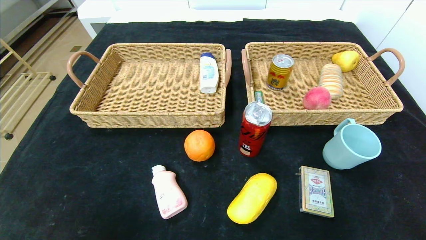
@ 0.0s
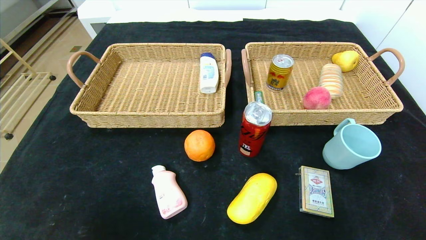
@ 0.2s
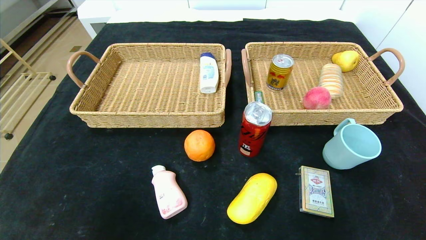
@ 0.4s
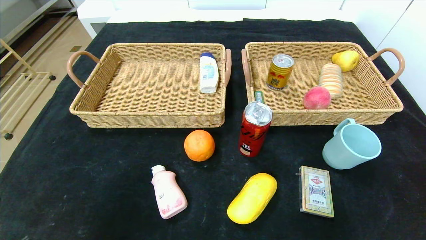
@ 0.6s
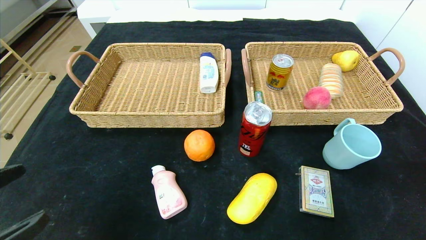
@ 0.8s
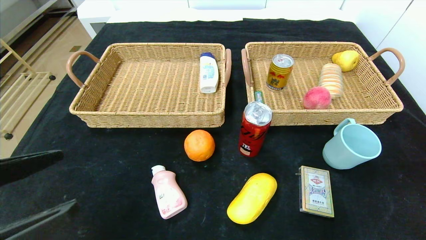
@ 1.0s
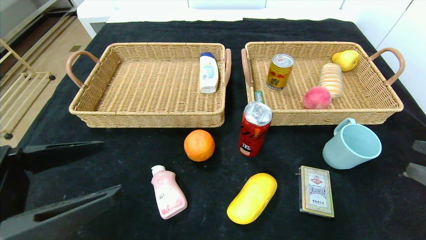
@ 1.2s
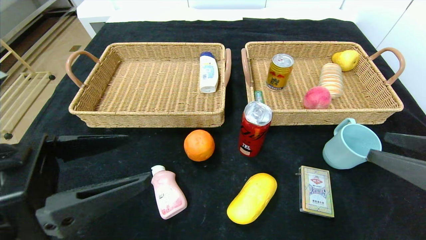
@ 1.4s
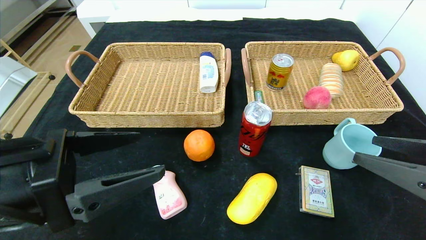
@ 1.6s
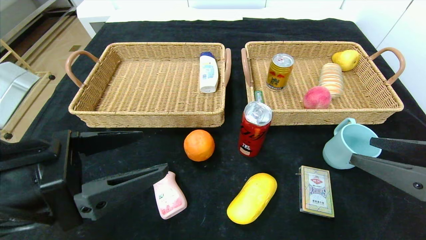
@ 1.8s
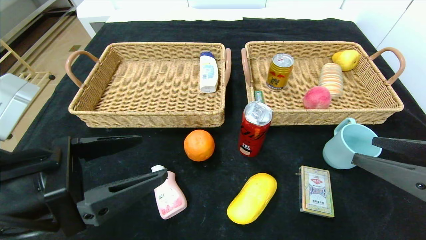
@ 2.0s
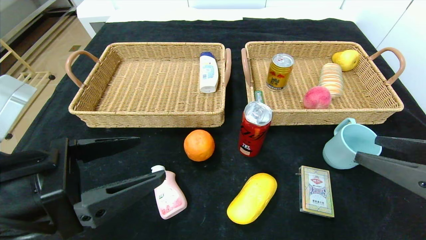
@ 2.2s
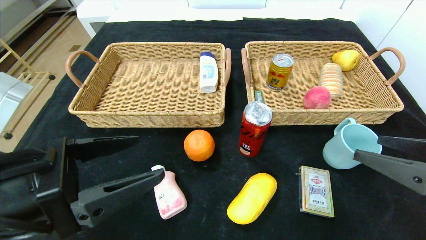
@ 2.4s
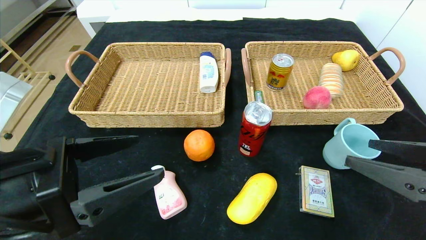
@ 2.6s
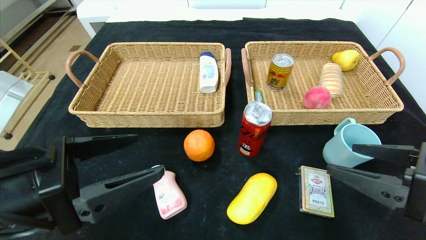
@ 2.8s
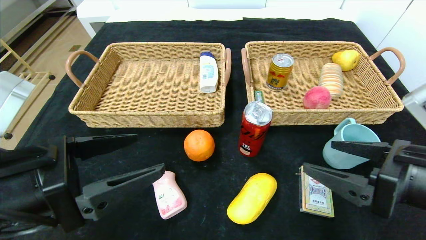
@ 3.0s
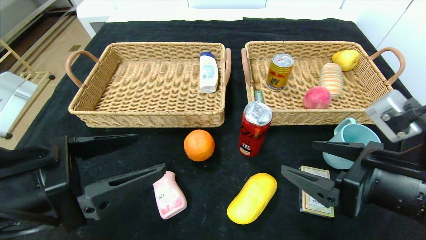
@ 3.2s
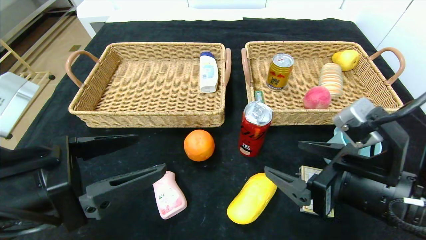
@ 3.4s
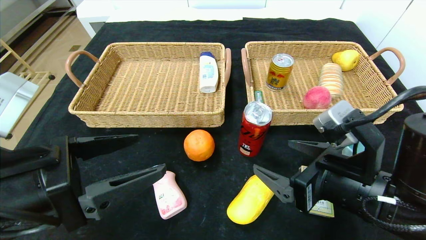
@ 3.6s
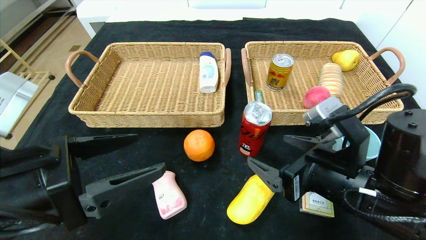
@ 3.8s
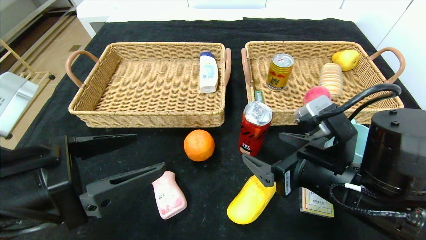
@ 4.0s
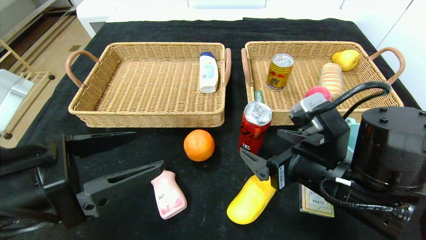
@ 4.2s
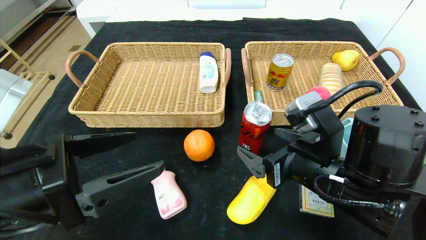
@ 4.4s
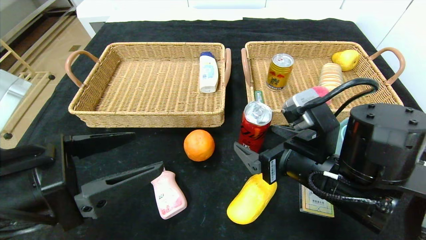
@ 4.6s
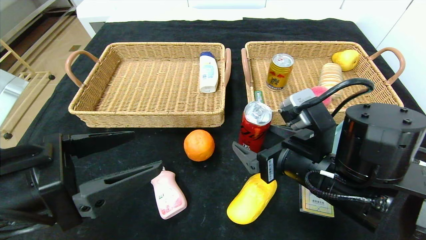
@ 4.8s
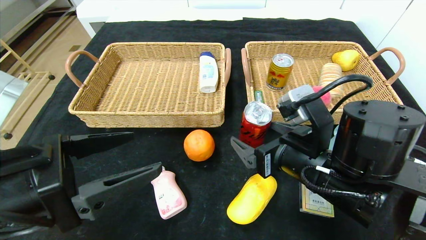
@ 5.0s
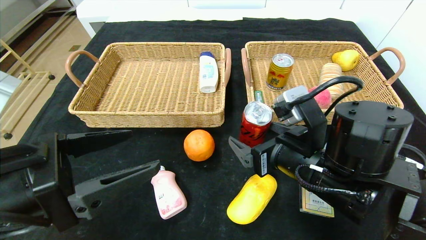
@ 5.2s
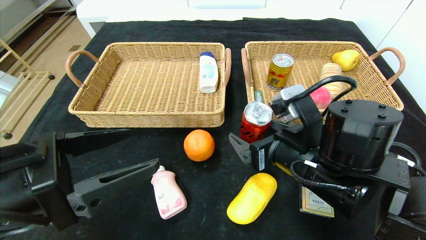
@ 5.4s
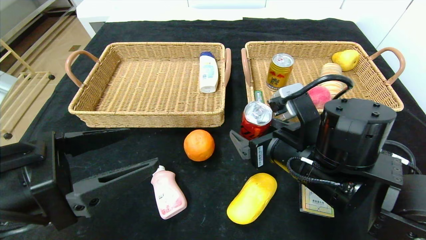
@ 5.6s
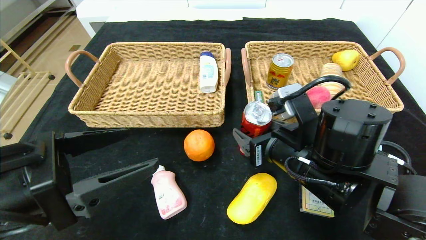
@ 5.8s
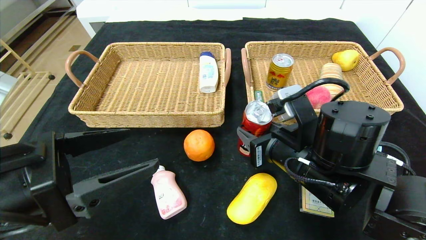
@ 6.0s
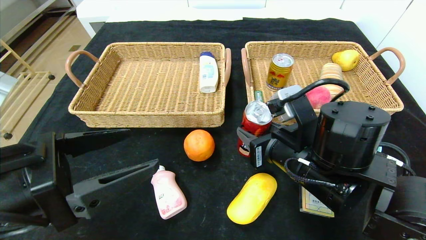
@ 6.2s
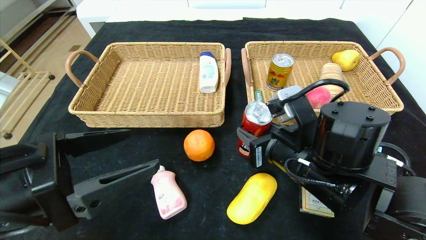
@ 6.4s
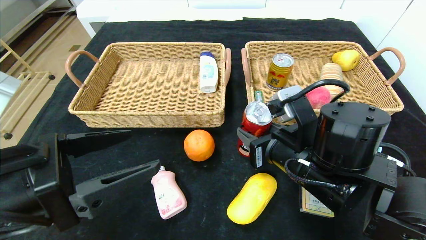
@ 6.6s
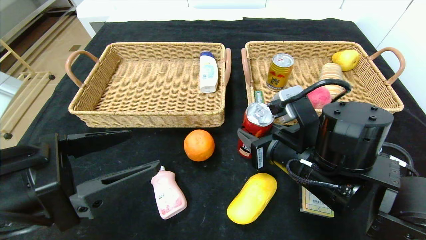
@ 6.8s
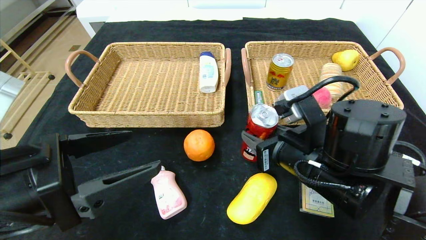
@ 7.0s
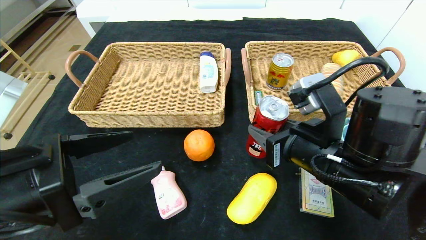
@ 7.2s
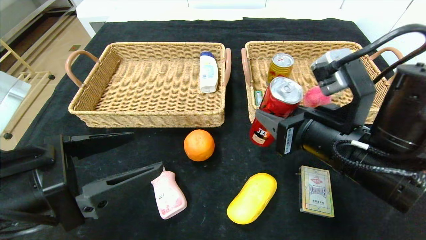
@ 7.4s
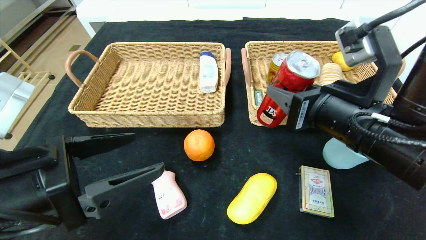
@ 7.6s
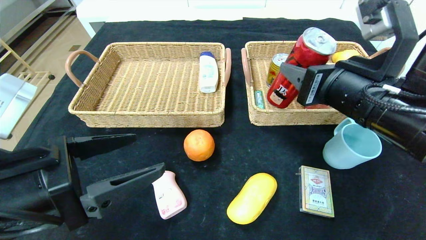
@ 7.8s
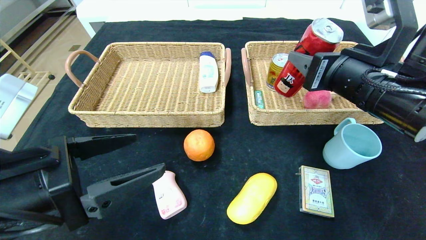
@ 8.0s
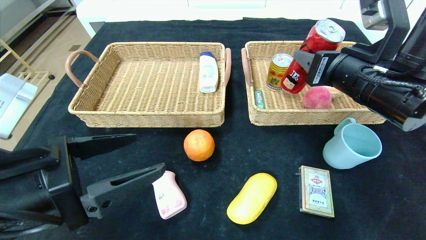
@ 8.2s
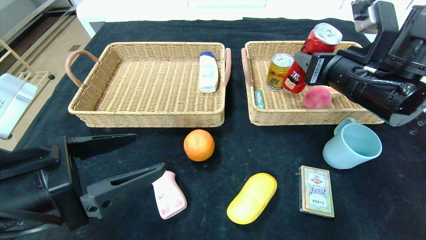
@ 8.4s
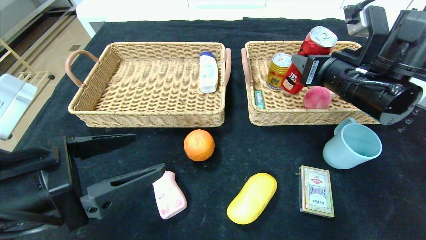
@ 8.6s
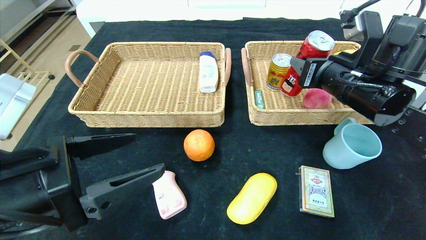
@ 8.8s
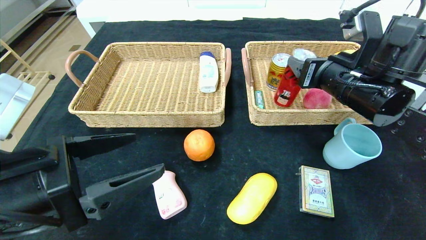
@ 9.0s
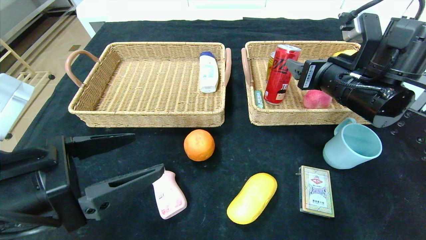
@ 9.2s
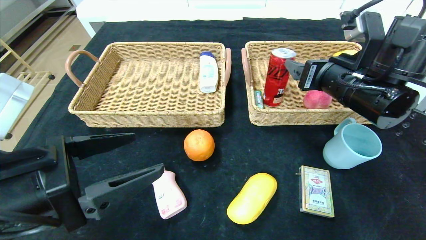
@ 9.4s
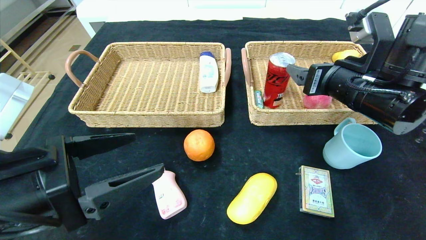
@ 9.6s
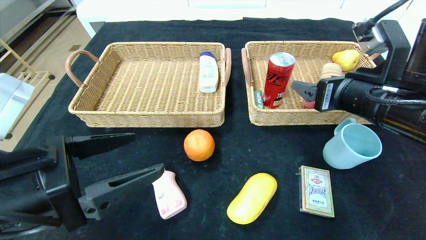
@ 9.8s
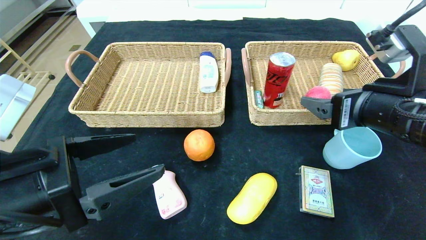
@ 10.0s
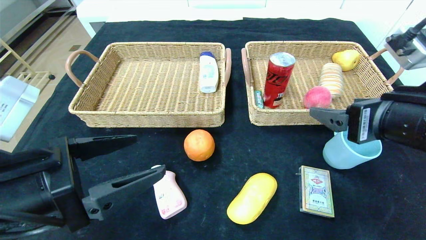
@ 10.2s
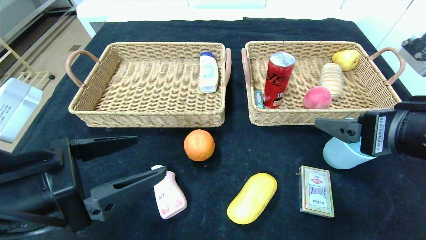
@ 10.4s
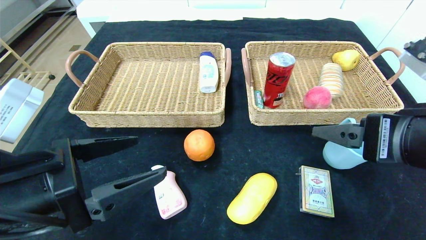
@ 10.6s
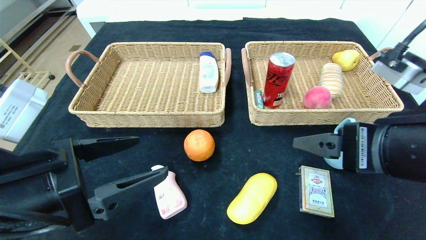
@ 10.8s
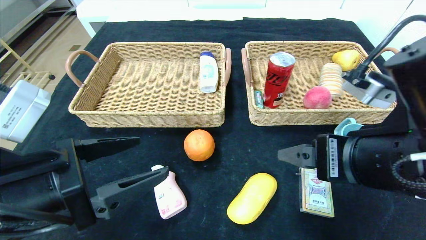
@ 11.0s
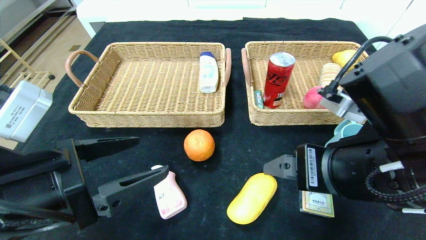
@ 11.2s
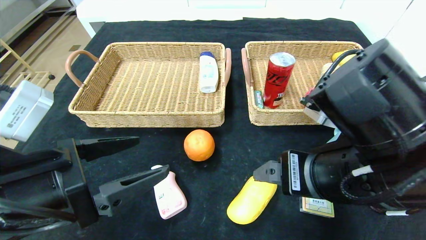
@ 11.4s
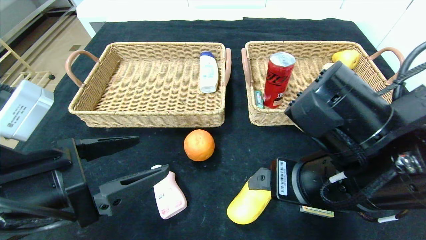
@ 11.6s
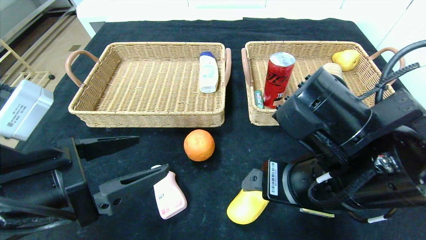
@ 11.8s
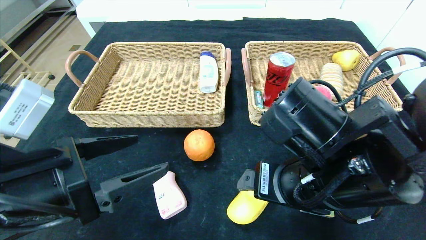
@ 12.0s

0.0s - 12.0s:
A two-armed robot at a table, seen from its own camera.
Step, 0.0s - 9.2s: Grasp the canned cola and put it in the right basket.
0.0s - 1.6s: The right gripper goes roughly 20 cm forward and upward. The left gripper heads forward, upward and to the right, covering some 25 cm.
1.6s - 3.0s: The right gripper goes about 5 cm to the left.
3.0s - 4.4s: The right gripper shifts roughly 10 cm to the left and forward.
4.4s - 6.0s: The right gripper closes its fingers.
6.0s - 7.6s: The right gripper is displaced upward by approximately 10 cm.
7.6s - 9.0s: The right gripper moves forward, about 10 cm.
9.0s - 10.4s: The right gripper heads backward, covering approximately 15 cm.
10.4s - 12.0s: The right gripper is displaced to the left and downward by roughly 15 cm.

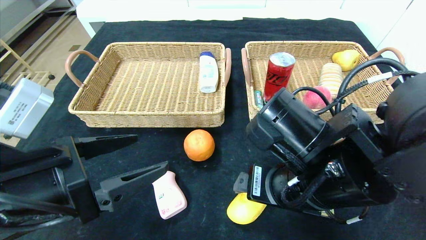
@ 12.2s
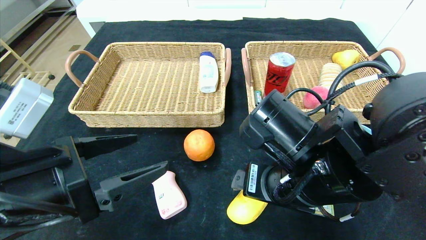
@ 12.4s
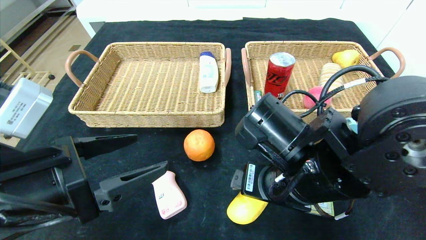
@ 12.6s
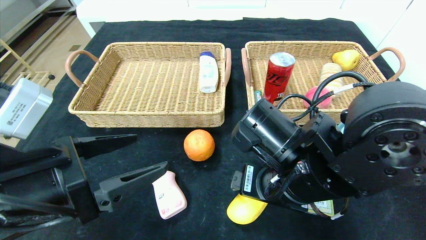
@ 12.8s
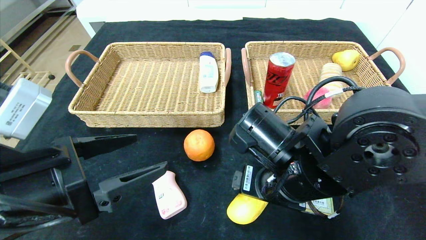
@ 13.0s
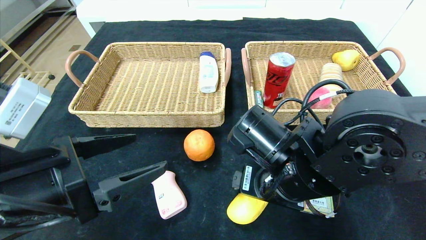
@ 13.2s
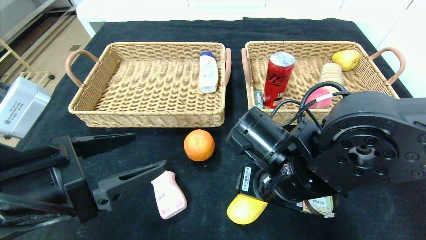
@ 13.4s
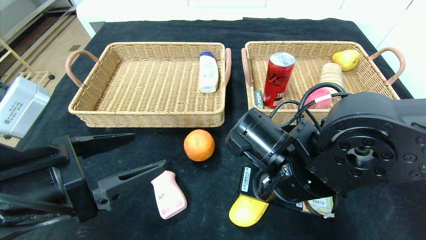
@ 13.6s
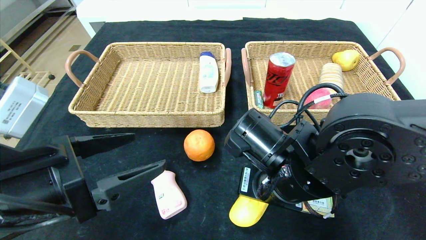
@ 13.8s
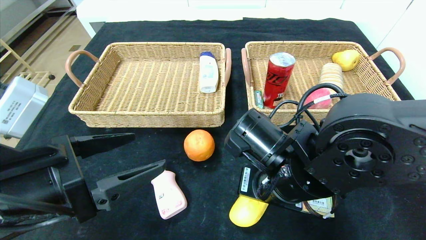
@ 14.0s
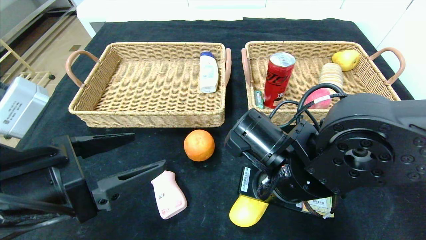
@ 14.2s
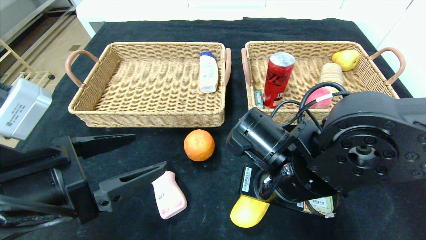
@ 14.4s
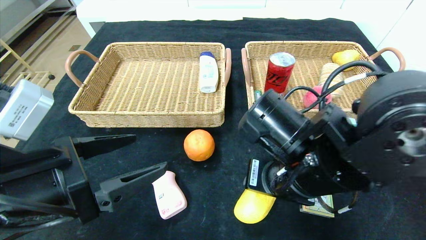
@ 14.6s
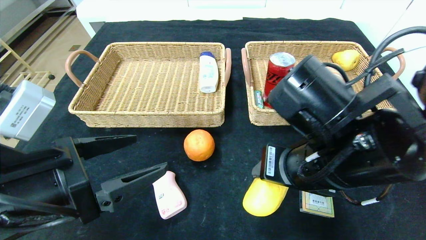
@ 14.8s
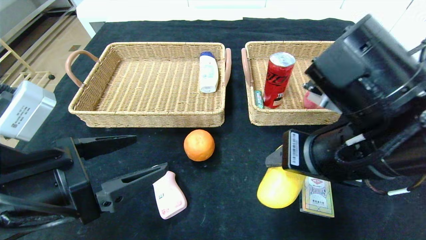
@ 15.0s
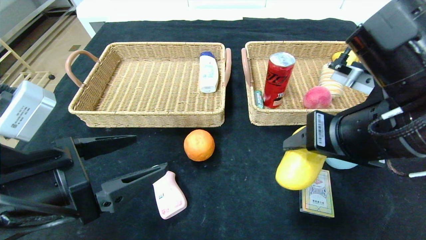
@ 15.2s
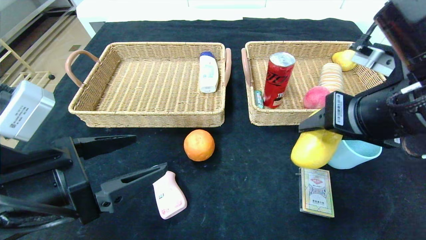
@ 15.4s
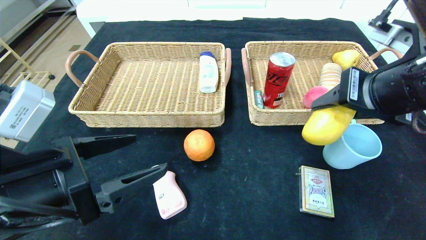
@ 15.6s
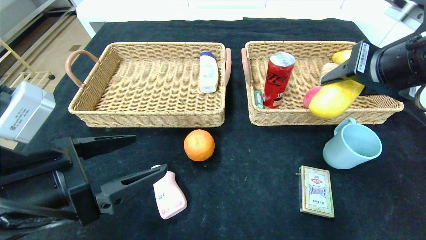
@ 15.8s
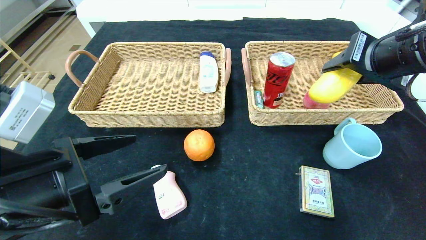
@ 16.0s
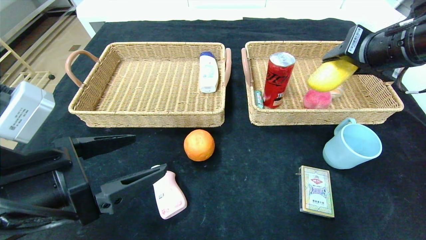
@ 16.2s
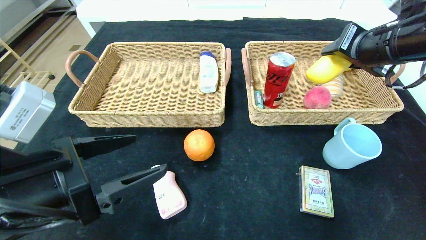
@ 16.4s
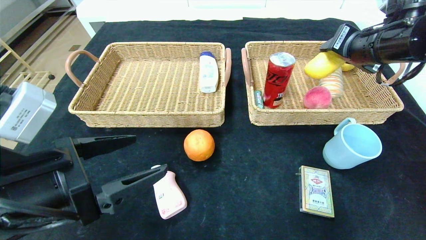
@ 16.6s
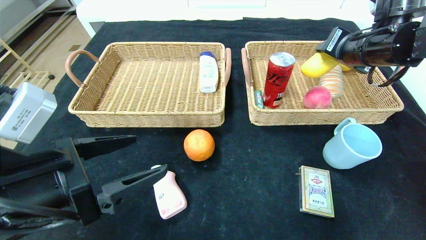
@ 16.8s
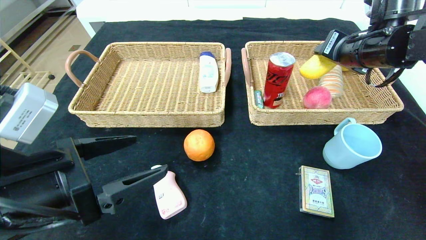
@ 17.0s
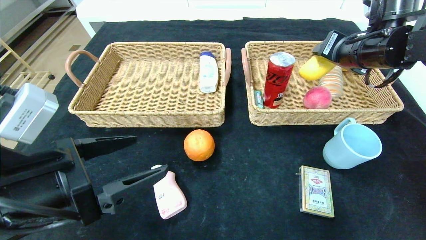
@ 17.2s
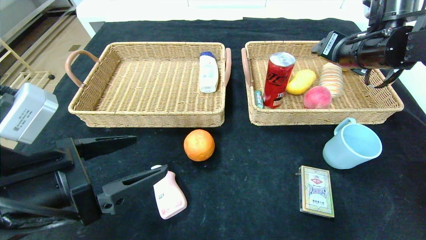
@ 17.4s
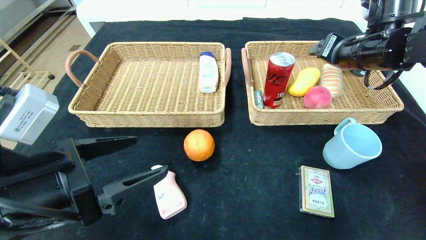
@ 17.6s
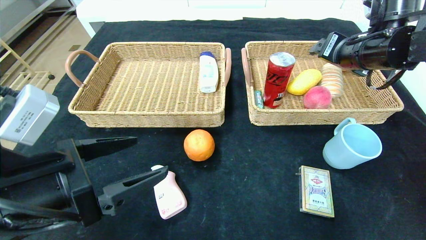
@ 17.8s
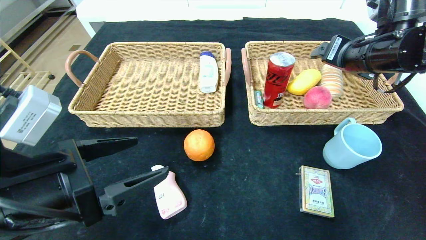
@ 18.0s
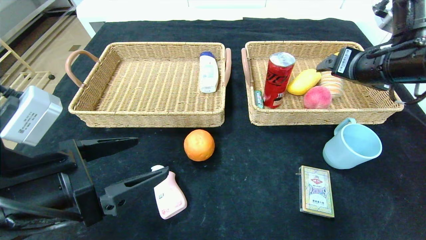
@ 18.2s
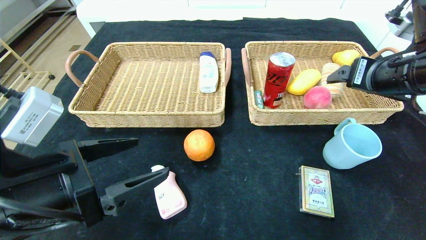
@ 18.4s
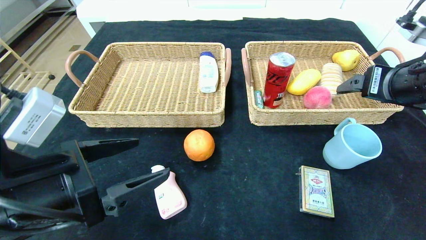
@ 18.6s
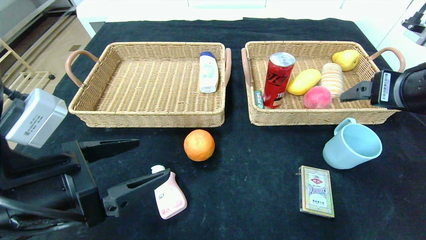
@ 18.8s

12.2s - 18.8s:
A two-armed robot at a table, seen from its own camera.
Step, 12.2s - 17.4s: Grasp the mango and put it in the right basket.
12.2s - 13.8s: The right gripper closes up.
13.8s - 15.4s: The right gripper goes about 15 cm upward and to the right.
15.4s - 17.2s: The right gripper travels forward by approximately 15 cm.
17.2s - 18.8s: The right gripper is displaced backward by some 15 cm.
